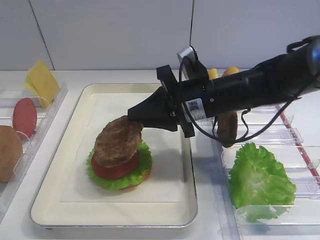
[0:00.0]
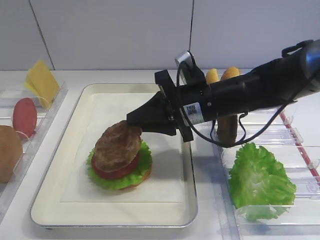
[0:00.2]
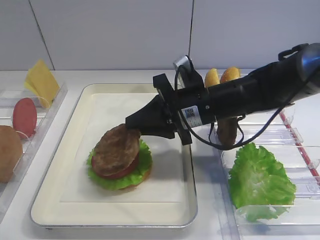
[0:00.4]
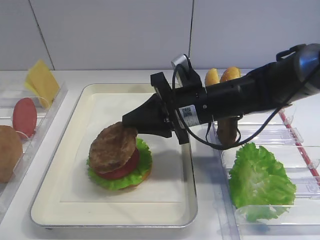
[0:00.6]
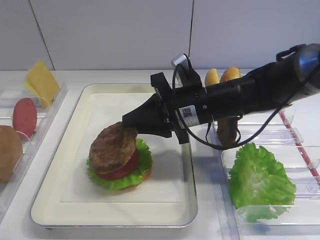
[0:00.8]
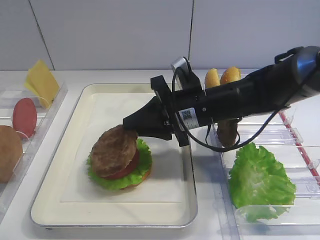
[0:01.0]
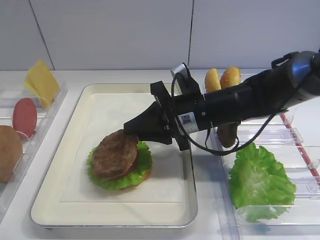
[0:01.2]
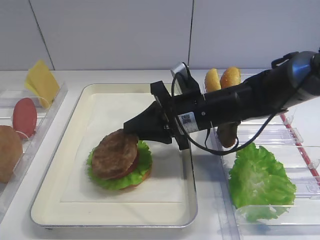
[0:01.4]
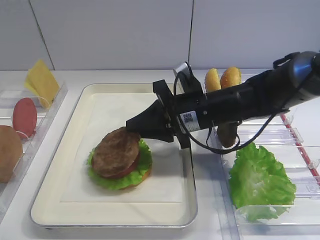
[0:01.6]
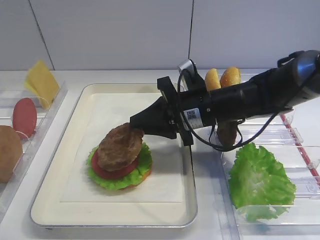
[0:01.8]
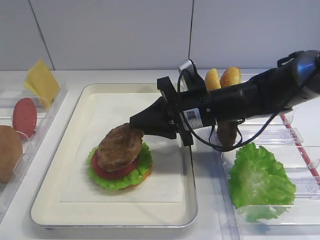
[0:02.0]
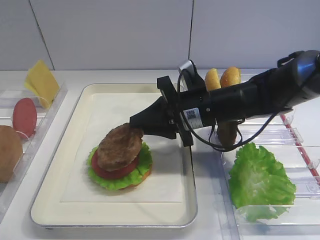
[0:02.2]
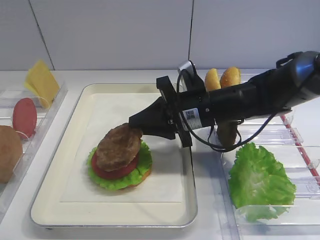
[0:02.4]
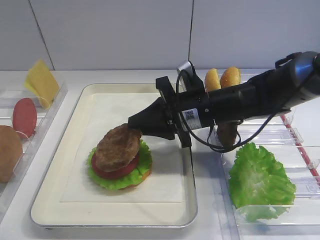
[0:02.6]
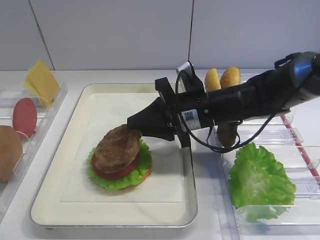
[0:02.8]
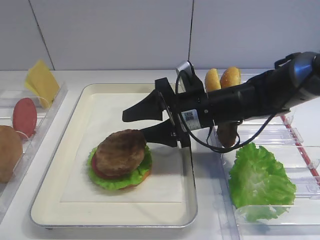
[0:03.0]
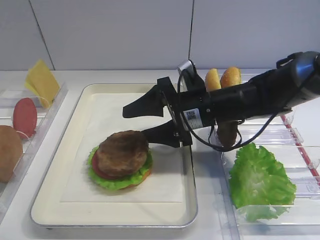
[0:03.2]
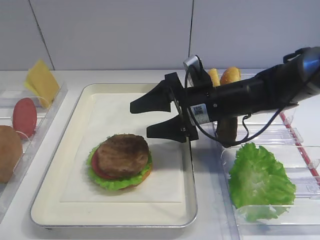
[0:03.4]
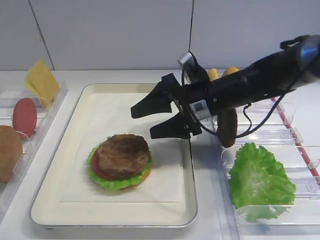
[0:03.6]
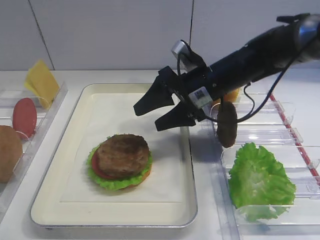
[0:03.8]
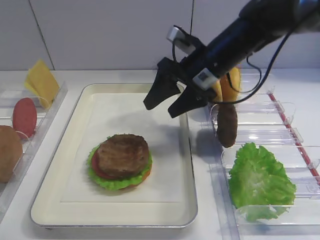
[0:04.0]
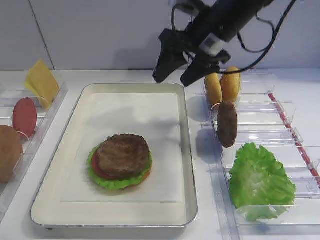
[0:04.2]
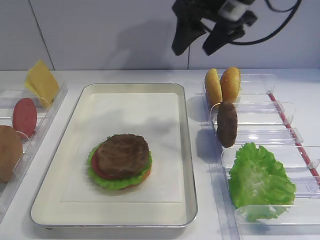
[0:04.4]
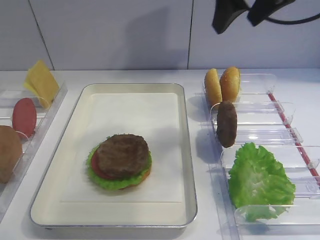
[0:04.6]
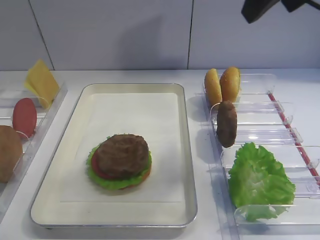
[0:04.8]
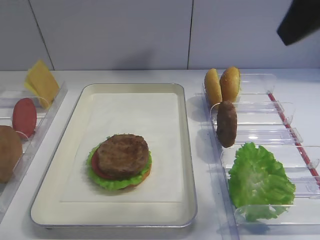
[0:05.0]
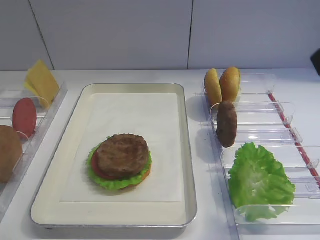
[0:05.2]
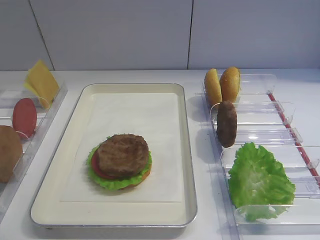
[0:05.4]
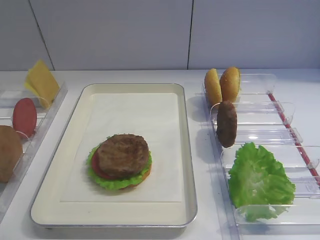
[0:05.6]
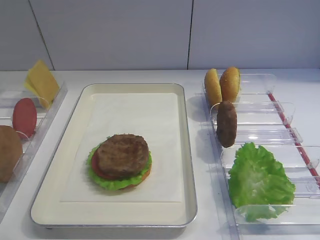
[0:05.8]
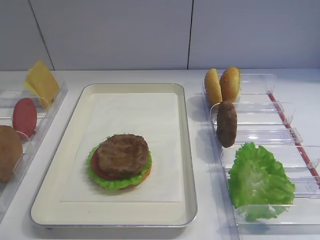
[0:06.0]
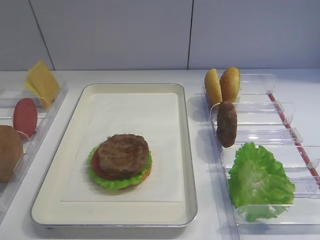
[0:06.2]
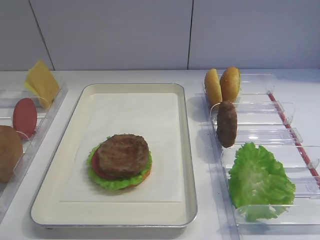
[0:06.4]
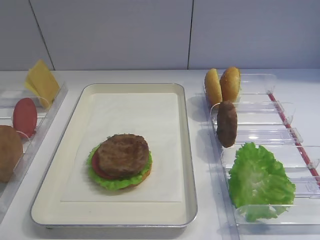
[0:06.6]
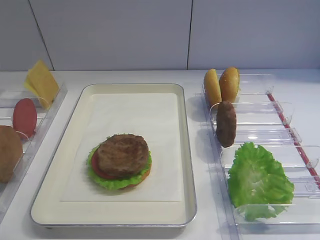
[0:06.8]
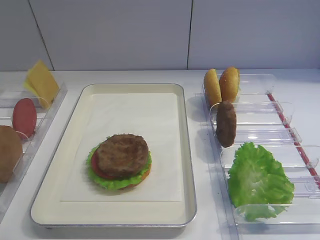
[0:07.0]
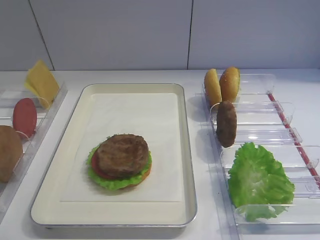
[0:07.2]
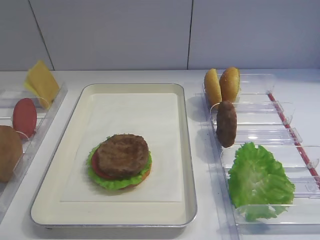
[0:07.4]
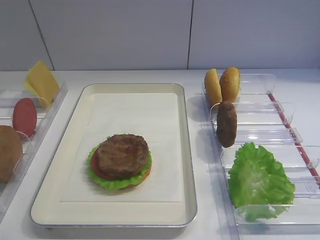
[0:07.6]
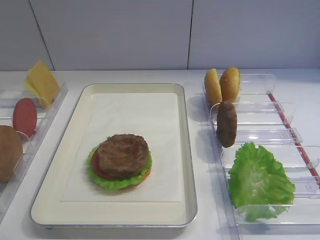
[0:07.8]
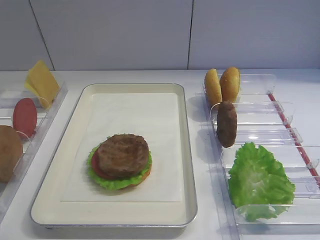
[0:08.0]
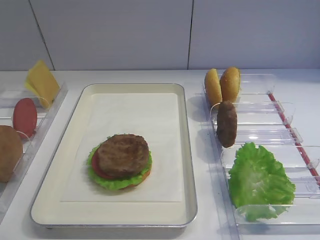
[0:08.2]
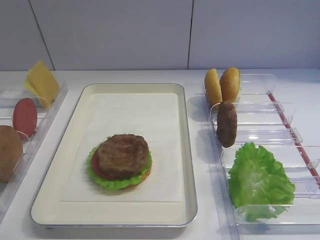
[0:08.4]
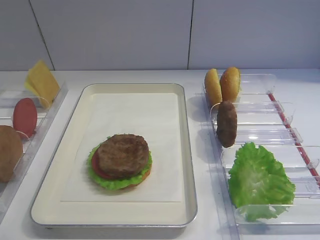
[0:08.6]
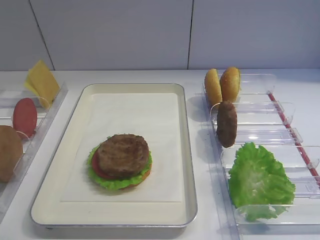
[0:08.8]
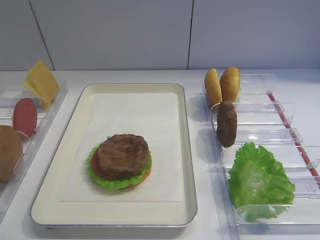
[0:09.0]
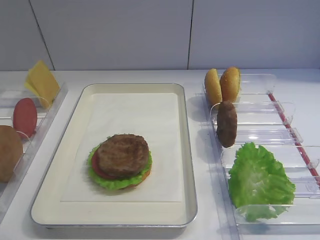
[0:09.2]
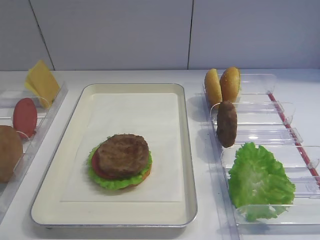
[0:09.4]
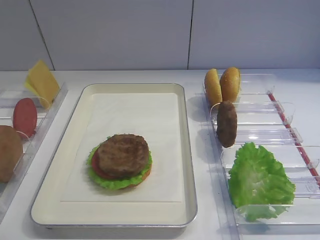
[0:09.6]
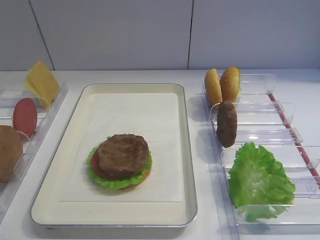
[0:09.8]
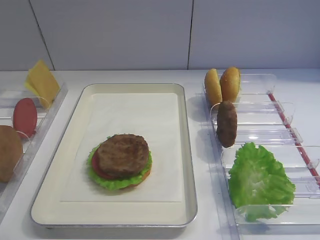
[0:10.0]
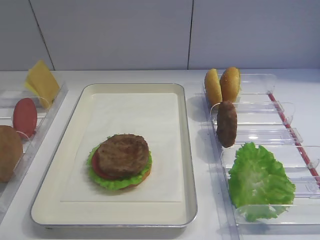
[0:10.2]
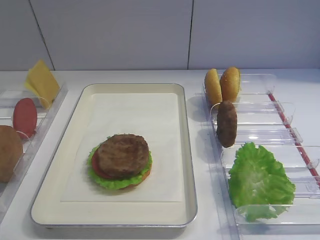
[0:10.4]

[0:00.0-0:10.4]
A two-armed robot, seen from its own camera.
Step, 0:00.0 to 0:03.6: Place the cutlet on the tomato slice with the right gripper.
0:00.0 to 0:01.4: The grippers make only small movements.
0:01.4 to 0:03.0: The right gripper opens.
0:03.0 to 0:04.4: The right gripper moves upward, about 20 cm.
0:04.4 to 0:06.0: The right gripper travels backward by roughly 35 cm.
0:09.0 to 0:10.4: Neither gripper changes place.

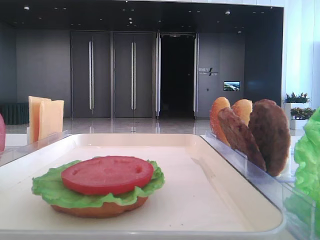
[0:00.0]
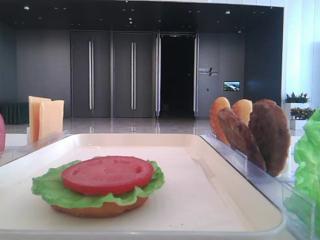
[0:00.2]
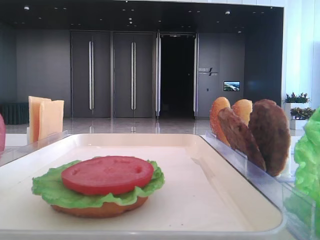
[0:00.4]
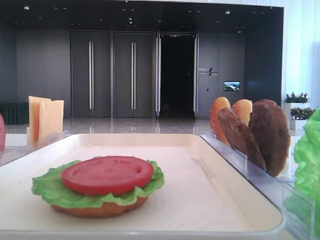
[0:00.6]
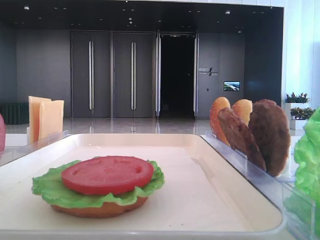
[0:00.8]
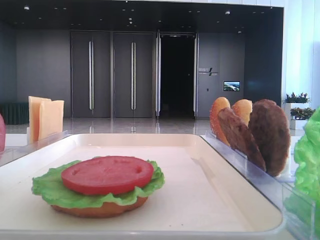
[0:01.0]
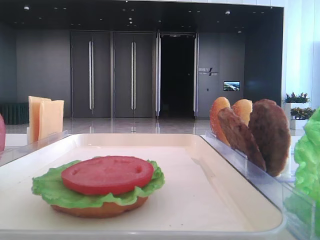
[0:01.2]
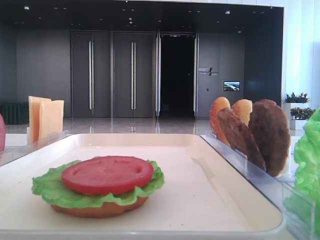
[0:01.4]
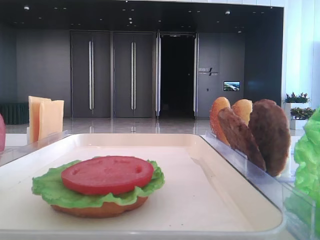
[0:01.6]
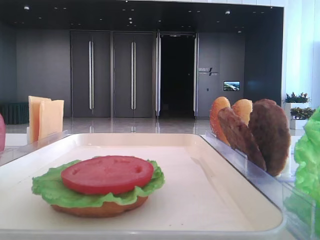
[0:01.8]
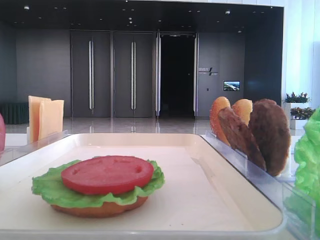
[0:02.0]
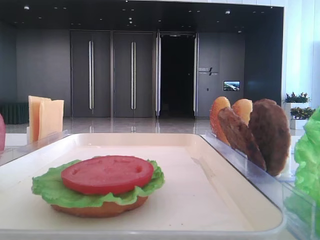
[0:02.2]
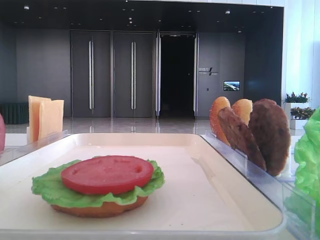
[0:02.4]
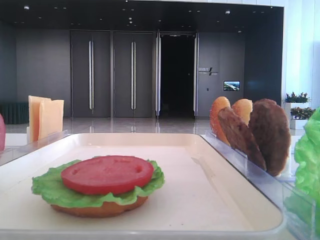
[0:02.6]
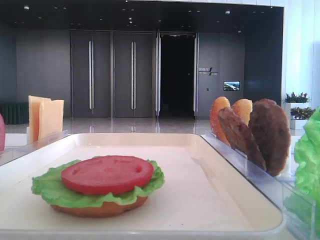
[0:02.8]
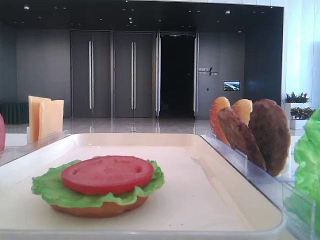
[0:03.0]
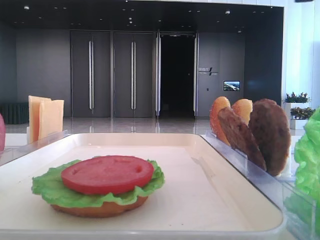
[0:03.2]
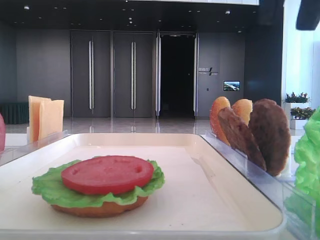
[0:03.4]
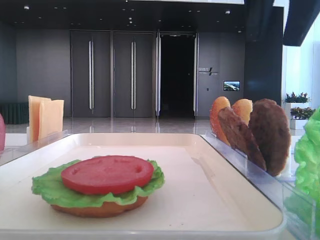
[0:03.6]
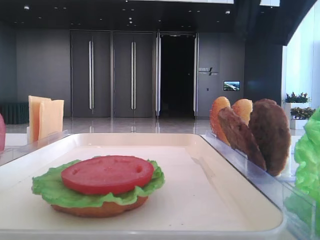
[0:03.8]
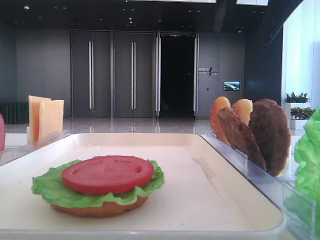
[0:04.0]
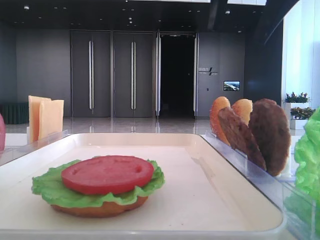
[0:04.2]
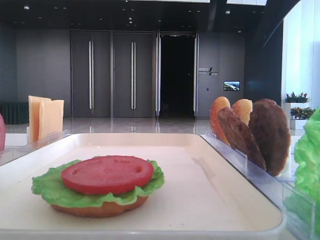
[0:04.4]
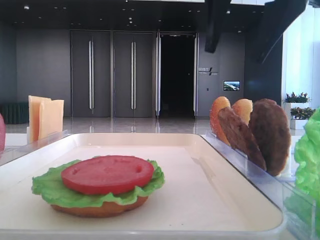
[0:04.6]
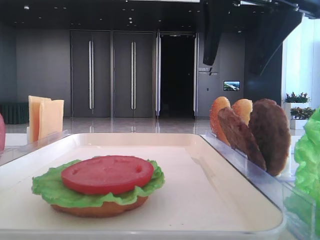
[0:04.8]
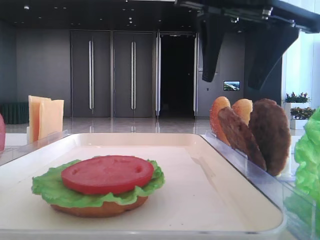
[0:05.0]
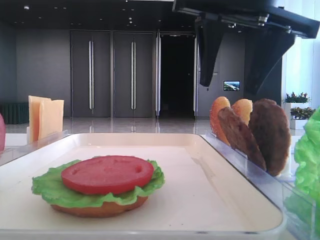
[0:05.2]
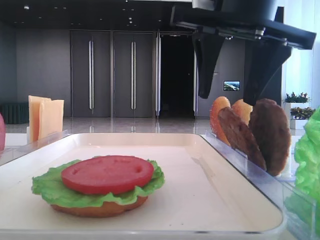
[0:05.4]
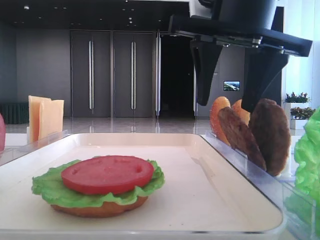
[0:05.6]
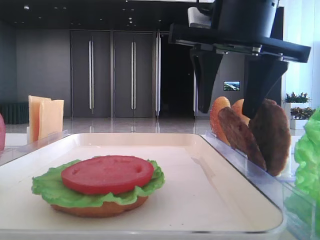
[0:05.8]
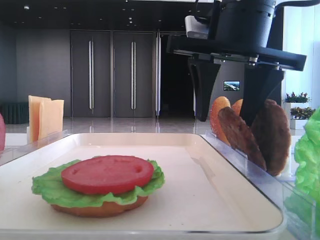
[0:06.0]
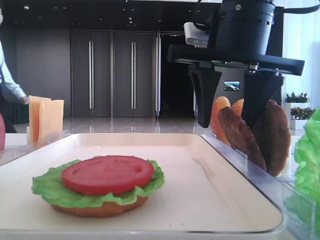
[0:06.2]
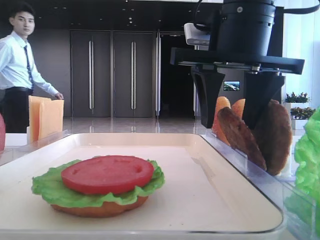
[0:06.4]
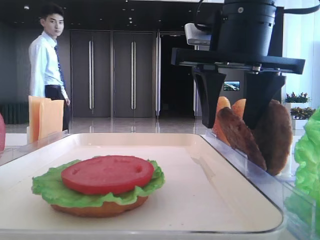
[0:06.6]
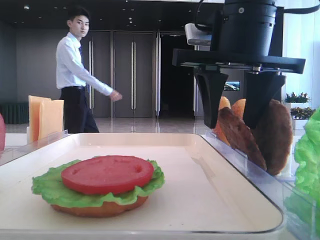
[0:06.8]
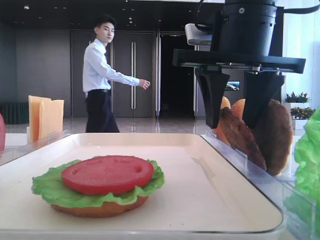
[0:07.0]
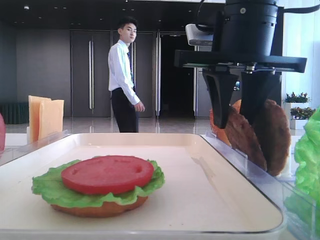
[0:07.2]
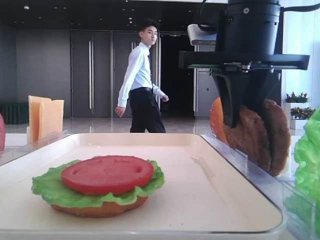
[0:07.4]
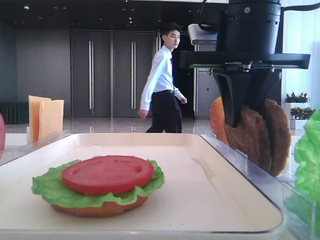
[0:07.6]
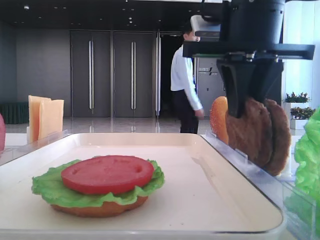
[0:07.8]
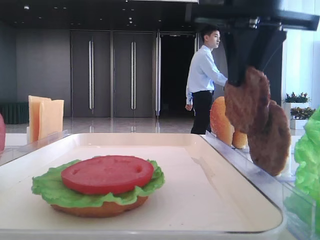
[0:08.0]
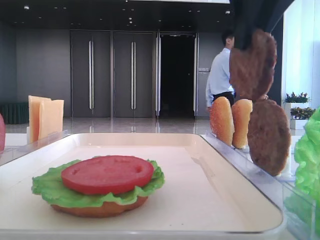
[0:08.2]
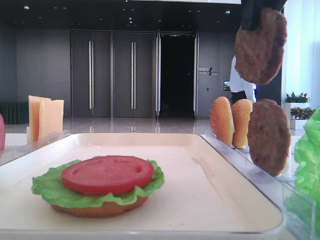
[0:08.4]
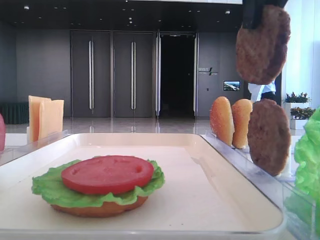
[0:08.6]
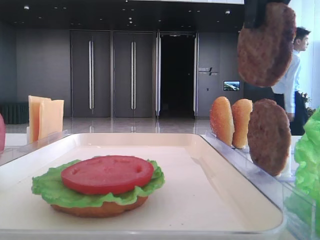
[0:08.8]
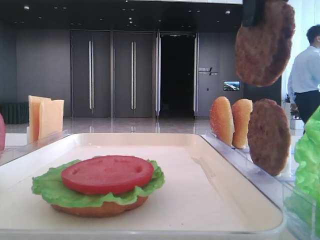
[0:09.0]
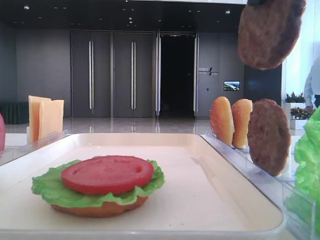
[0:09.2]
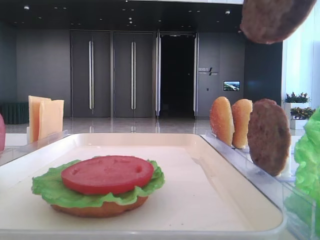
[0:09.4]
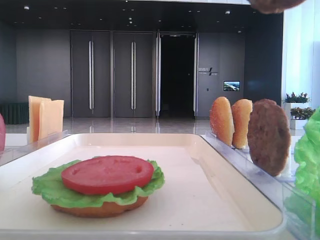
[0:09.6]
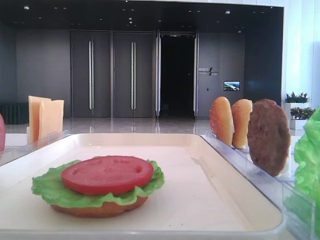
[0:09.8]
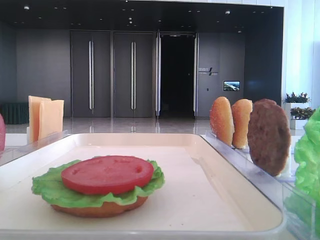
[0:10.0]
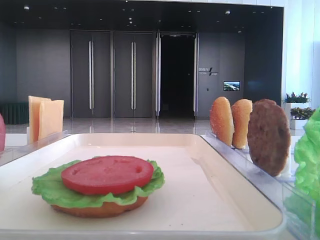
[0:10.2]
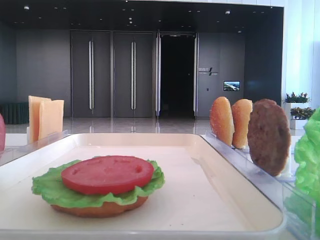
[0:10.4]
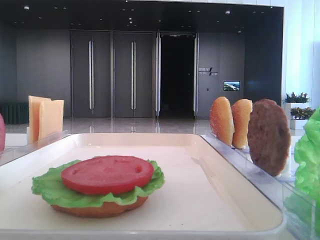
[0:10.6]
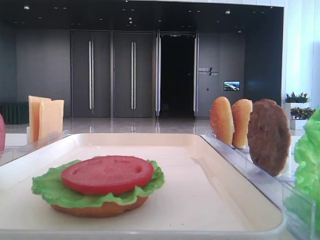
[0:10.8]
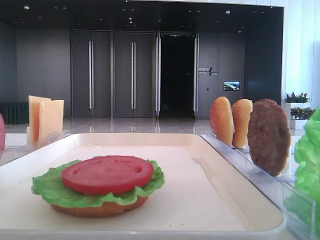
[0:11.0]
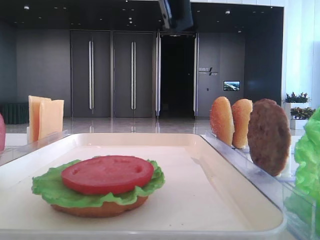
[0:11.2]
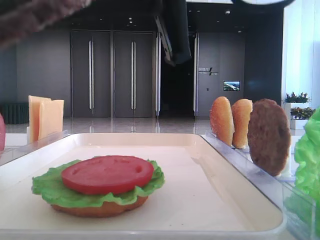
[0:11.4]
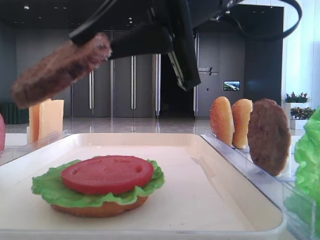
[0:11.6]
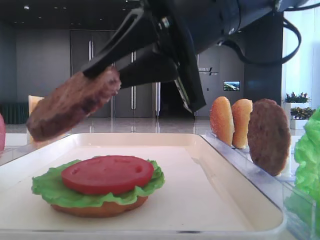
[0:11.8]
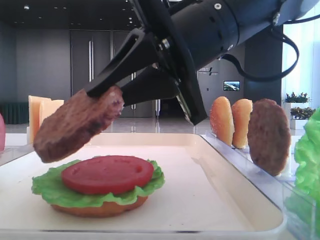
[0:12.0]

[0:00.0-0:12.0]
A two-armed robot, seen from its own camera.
Step, 0:00.0 to 0:07.6: Grab the patty with the right hand.
0:04.4 to 0:06.0: The right gripper travels downward by roughly 10 cm.
0:06.0 to 0:07.6: The right gripper closes up.
0:07.6 to 0:09.0: The right gripper heads upward, covering some 10 cm.
0:09.0 to 0:10.4: The right gripper is displaced backward by about 15 cm.
0:10.4 to 0:12.0: The right gripper is displaced downward and forward by about 20 cm.
